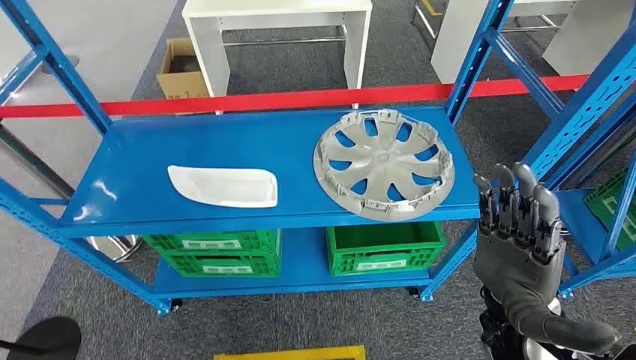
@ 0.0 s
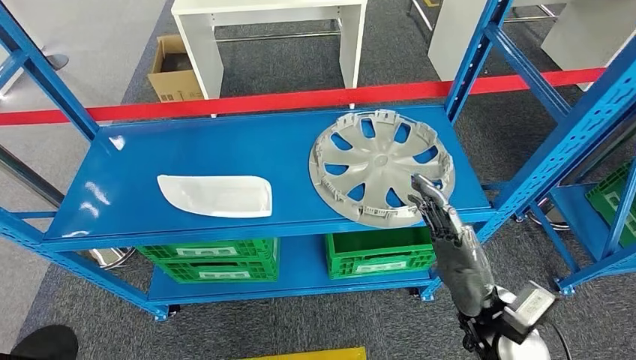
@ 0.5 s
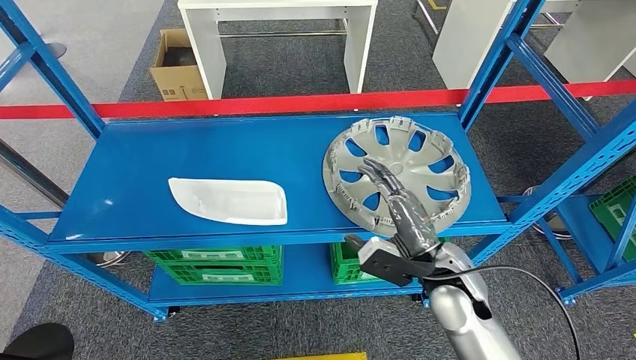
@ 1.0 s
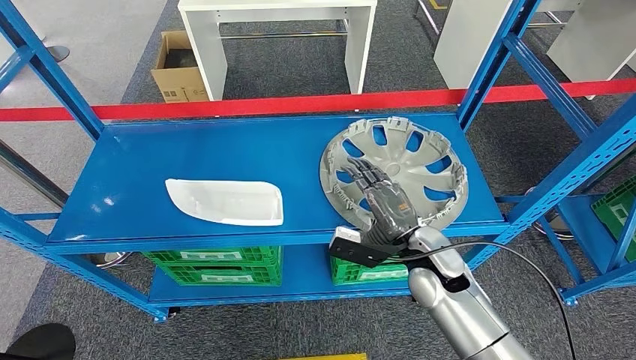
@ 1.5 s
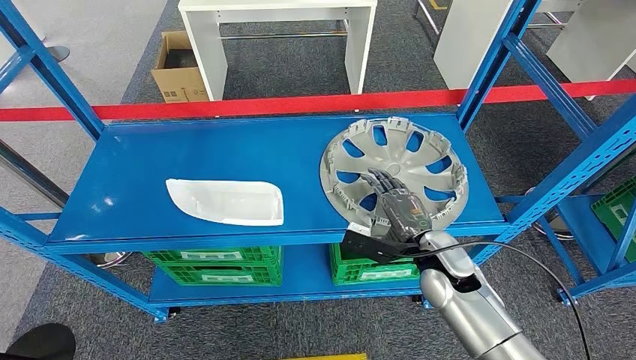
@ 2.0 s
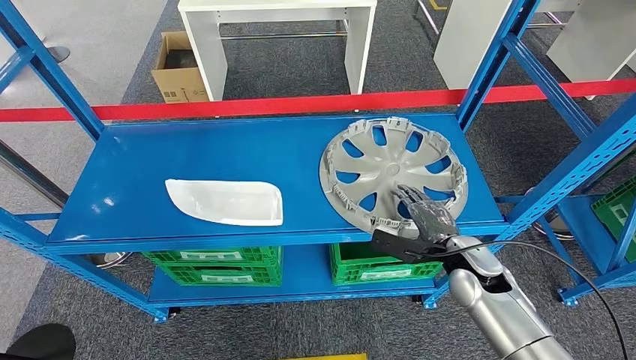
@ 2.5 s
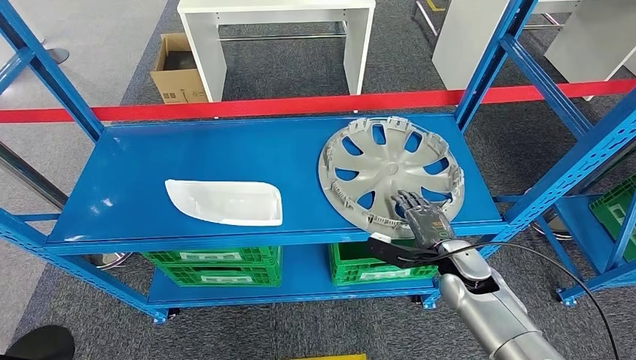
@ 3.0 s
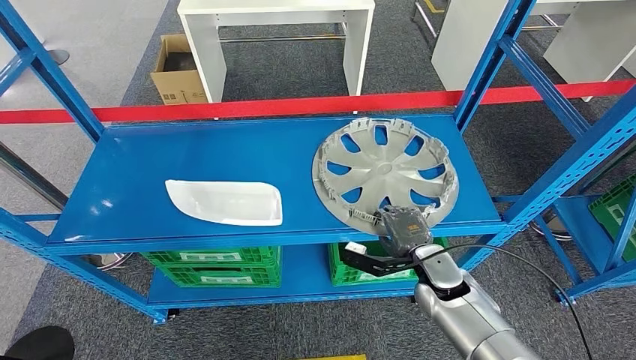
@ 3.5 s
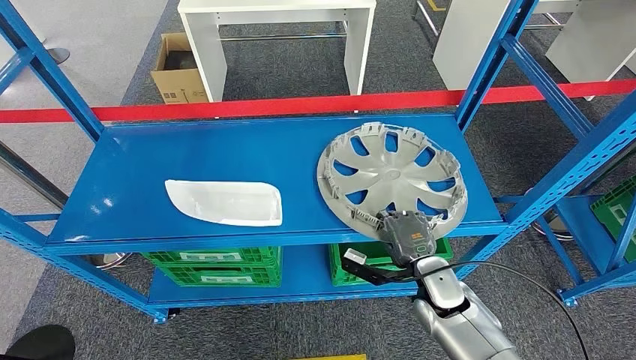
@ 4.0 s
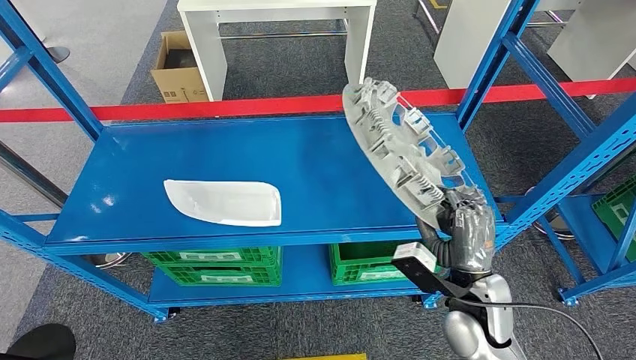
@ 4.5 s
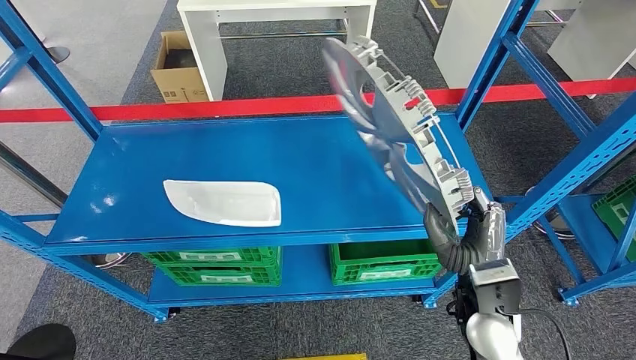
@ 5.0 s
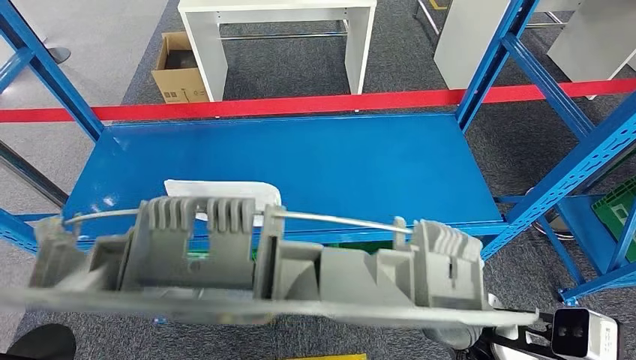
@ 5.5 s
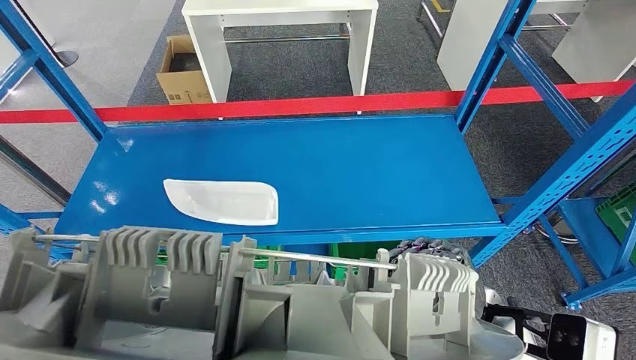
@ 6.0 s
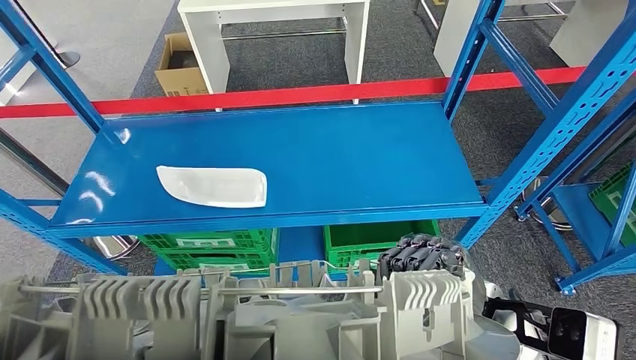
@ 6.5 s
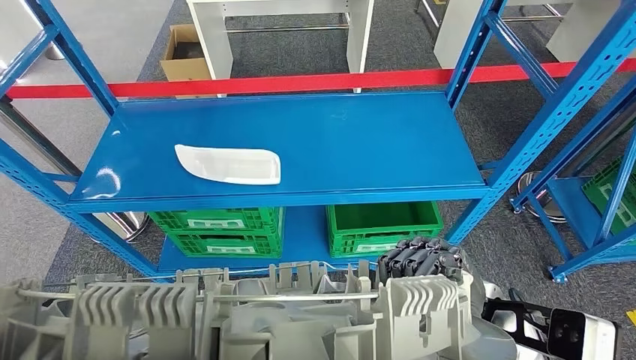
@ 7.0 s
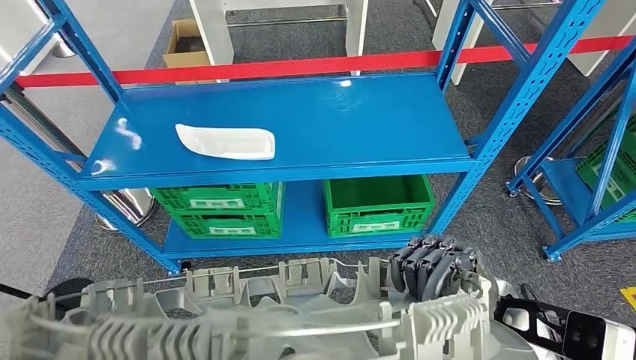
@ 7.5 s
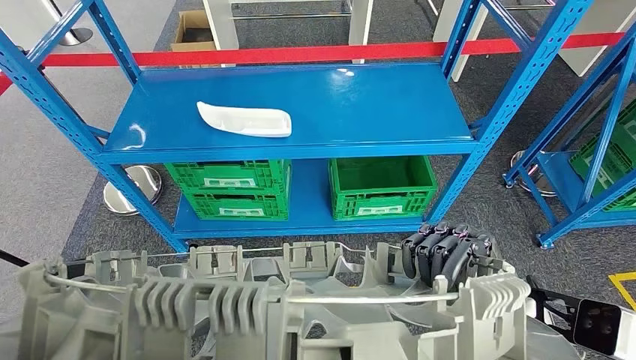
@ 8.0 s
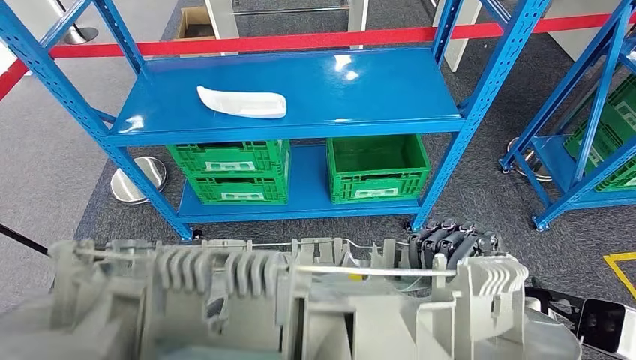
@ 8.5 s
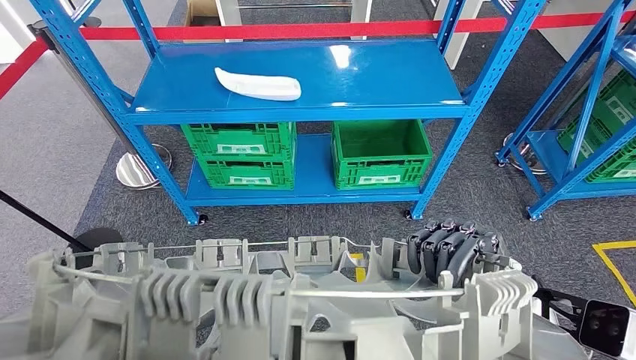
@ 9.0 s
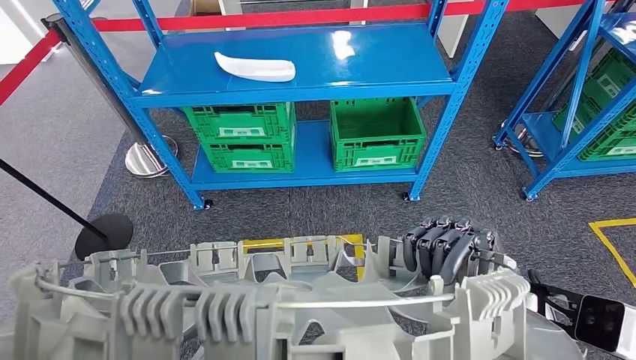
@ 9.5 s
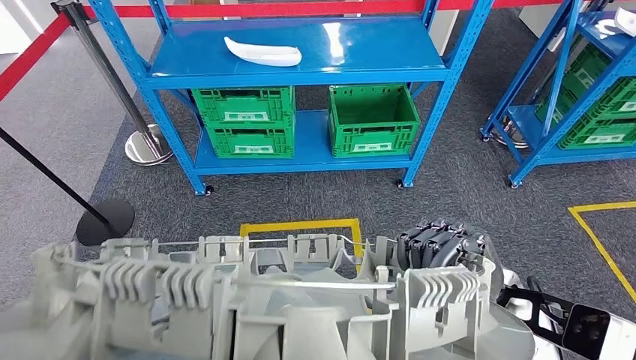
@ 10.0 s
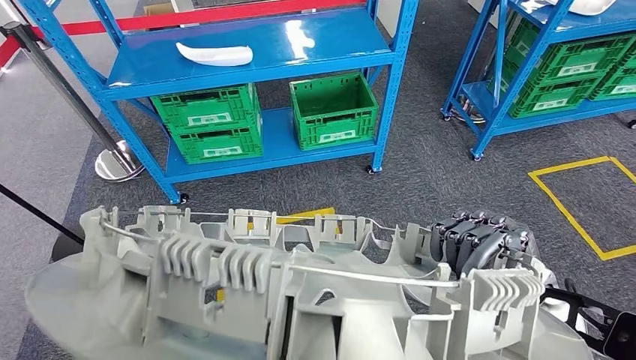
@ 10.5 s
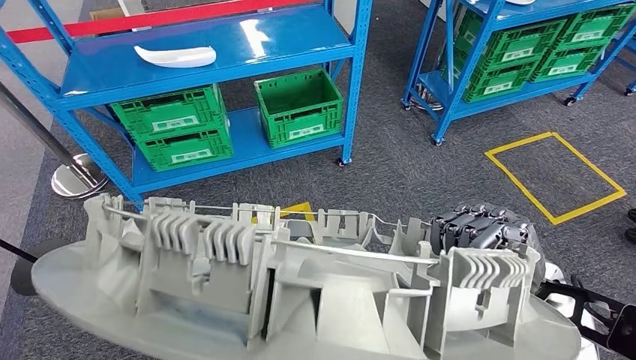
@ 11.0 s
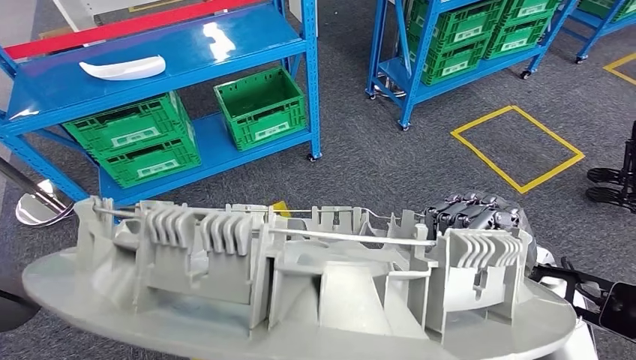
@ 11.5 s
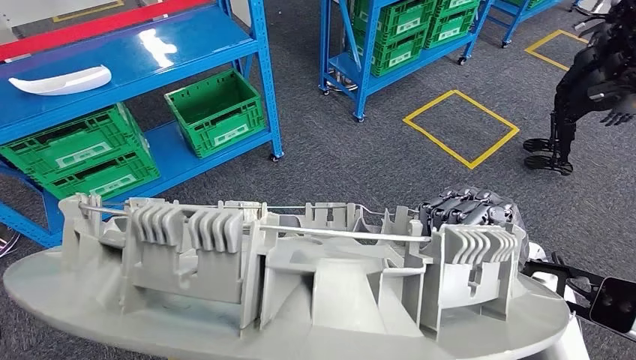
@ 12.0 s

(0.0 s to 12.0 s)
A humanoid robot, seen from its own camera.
Step, 0.0 s - 5.0 s: Take small components from the rack.
2.0 s - 4.0 s: The right hand moves downward, some 5 cm.

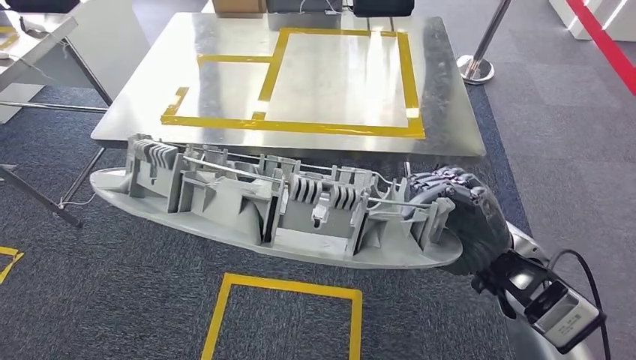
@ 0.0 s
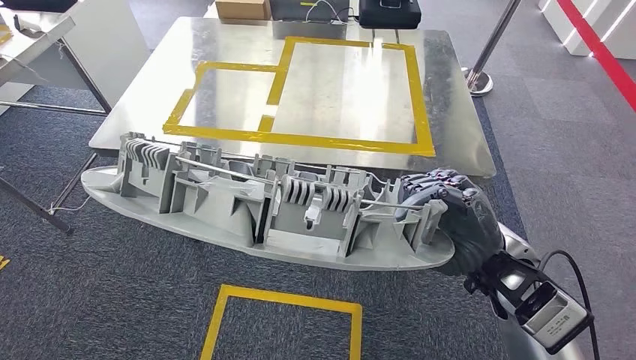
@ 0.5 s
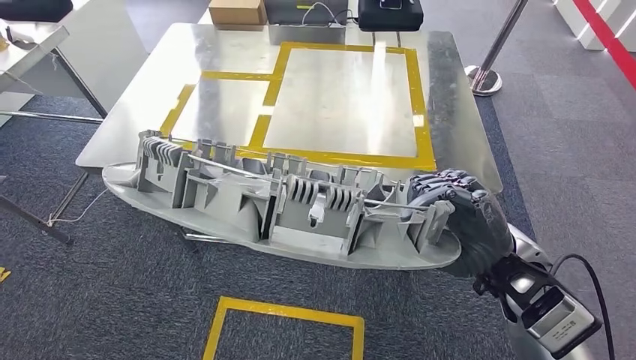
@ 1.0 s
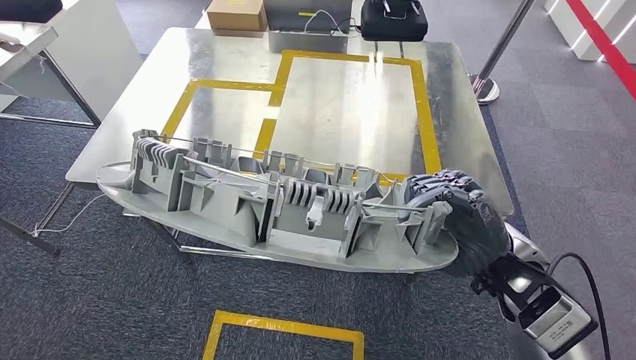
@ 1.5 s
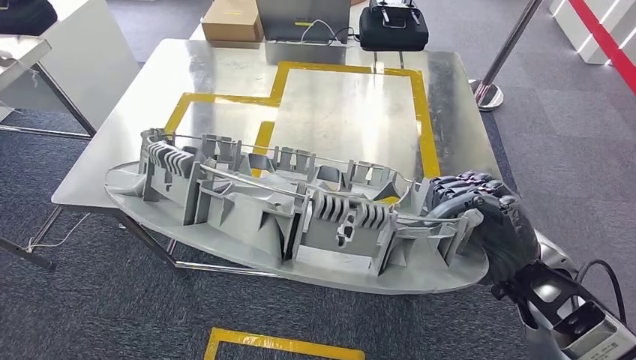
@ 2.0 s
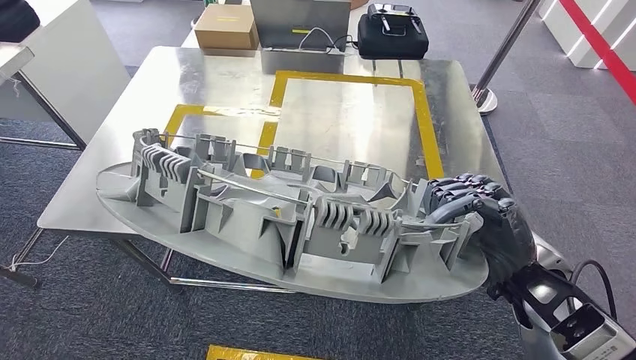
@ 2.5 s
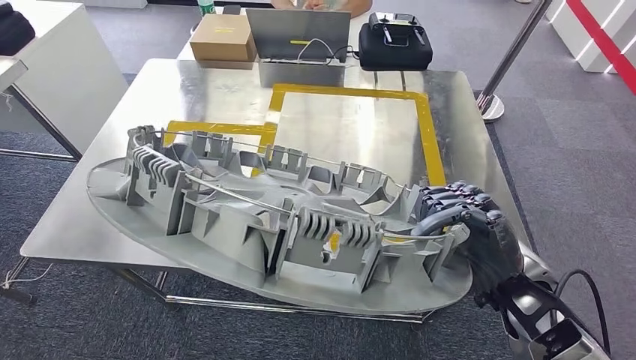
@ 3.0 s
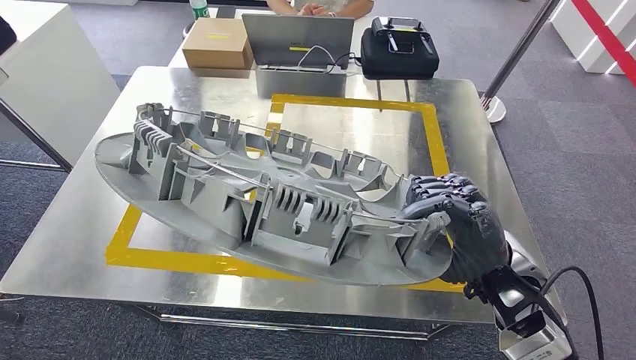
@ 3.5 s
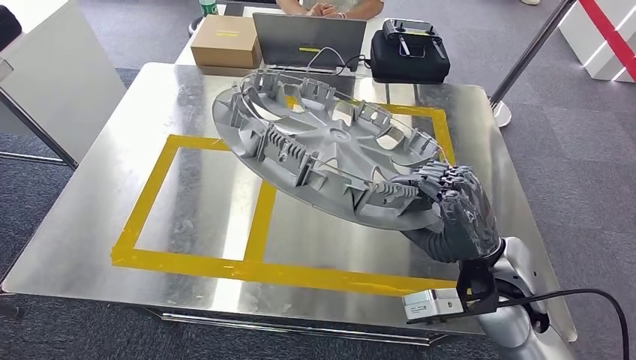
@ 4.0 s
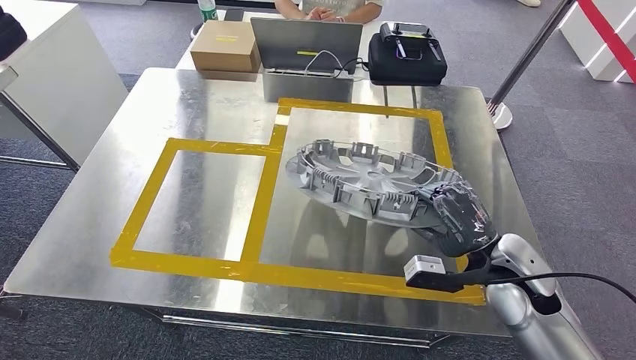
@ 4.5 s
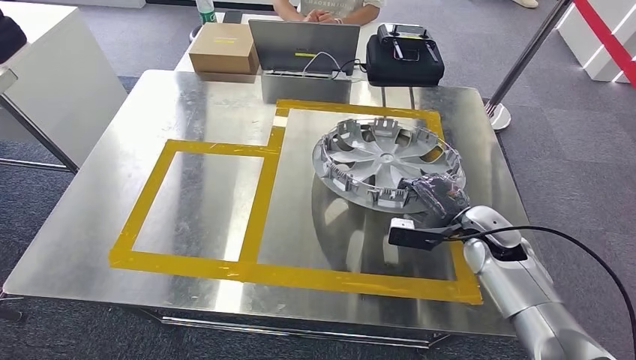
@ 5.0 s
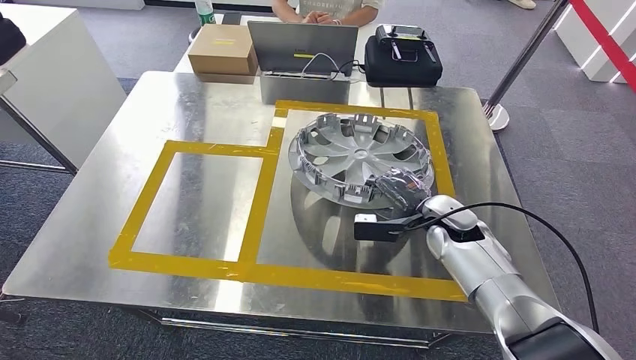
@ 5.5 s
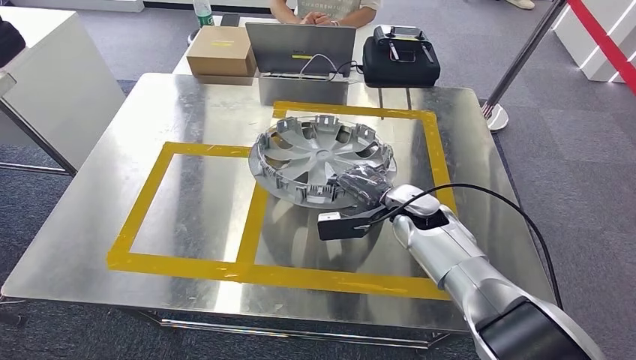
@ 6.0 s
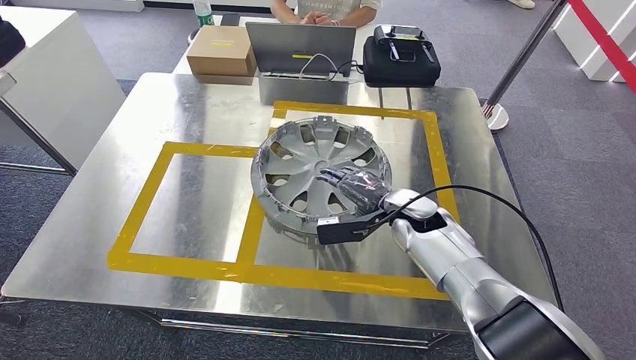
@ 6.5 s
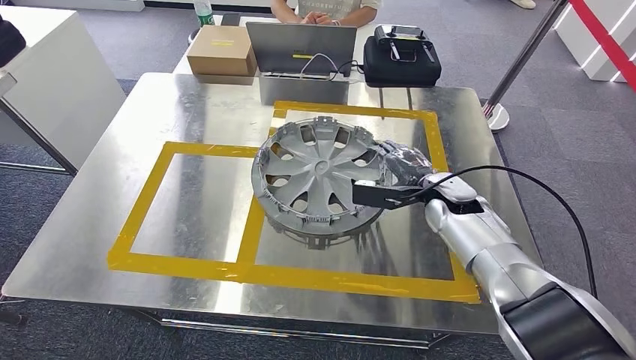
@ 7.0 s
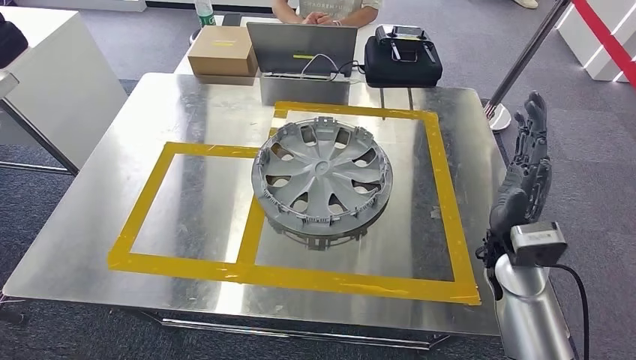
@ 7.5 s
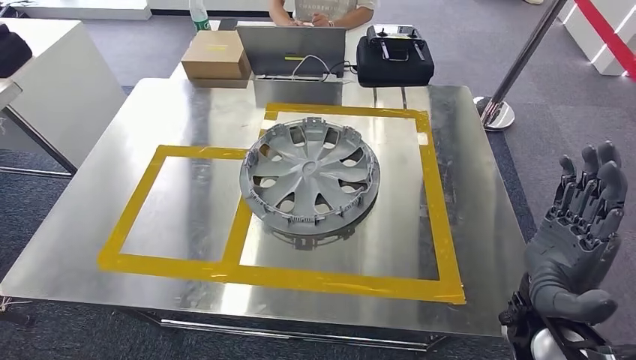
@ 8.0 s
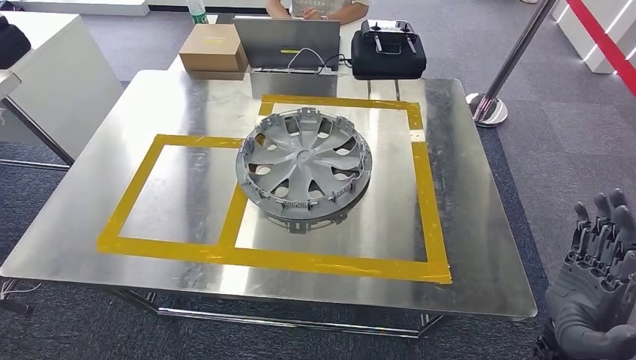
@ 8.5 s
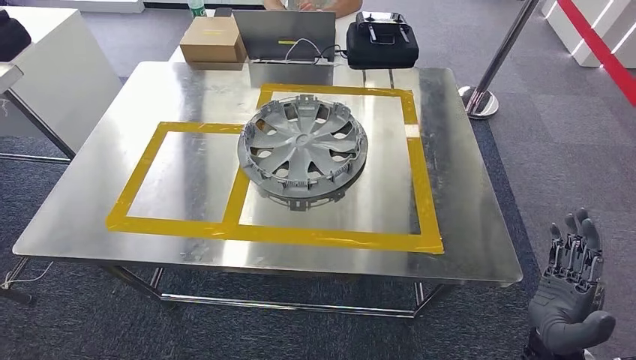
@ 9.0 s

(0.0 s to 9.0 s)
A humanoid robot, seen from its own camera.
Step, 0.0 s - 3.0 s: Move the small parts to the workbench.
Step, 3.5 s - 7.5 s: Insert the small parts into the corresponding holes on the workbench.
